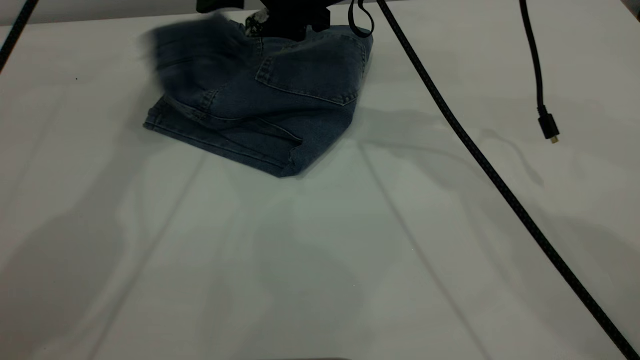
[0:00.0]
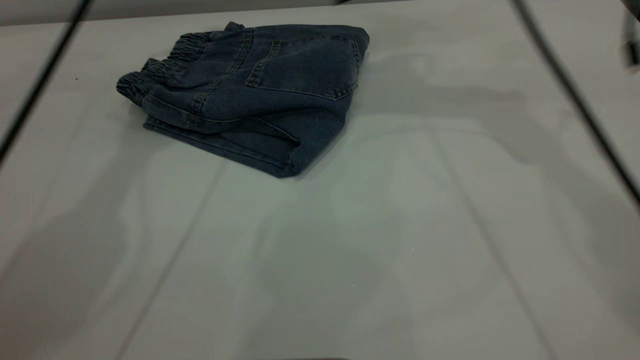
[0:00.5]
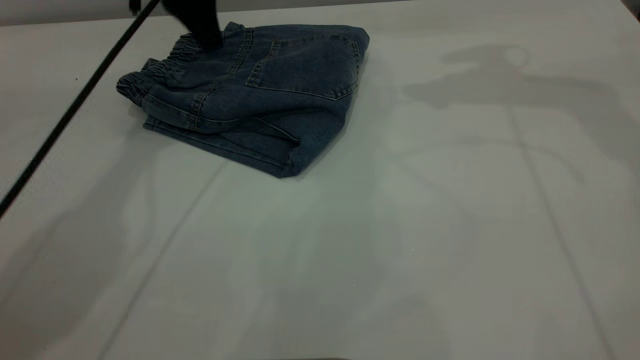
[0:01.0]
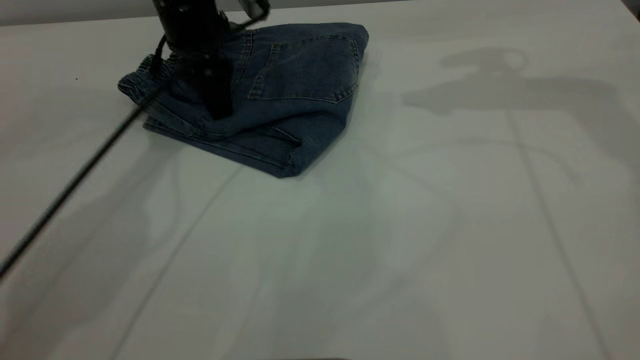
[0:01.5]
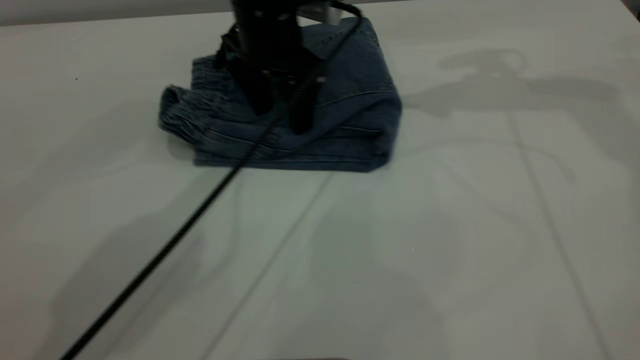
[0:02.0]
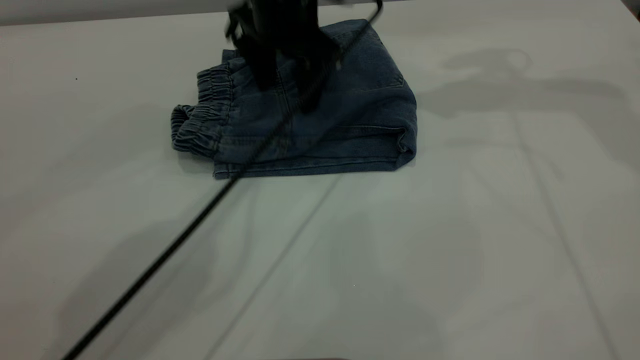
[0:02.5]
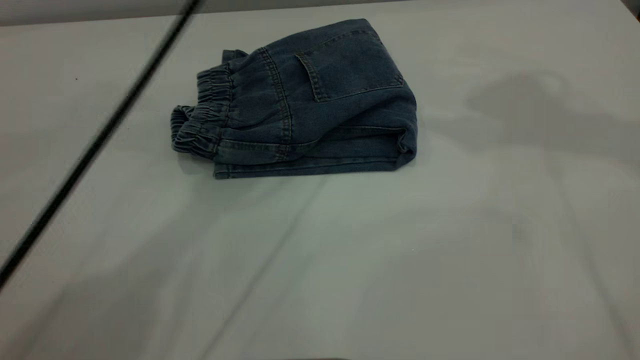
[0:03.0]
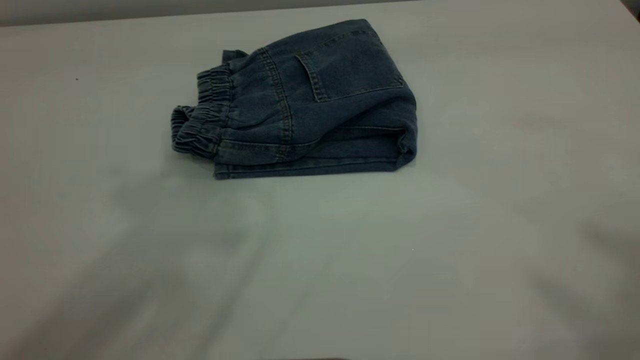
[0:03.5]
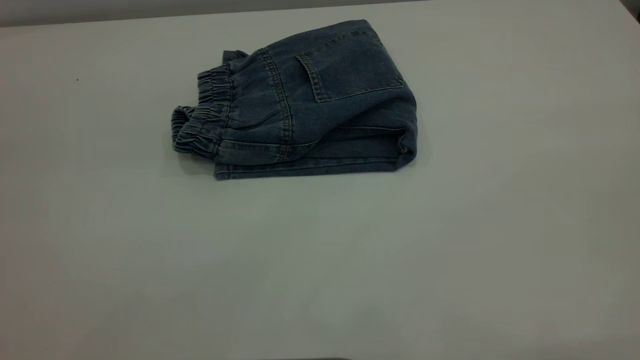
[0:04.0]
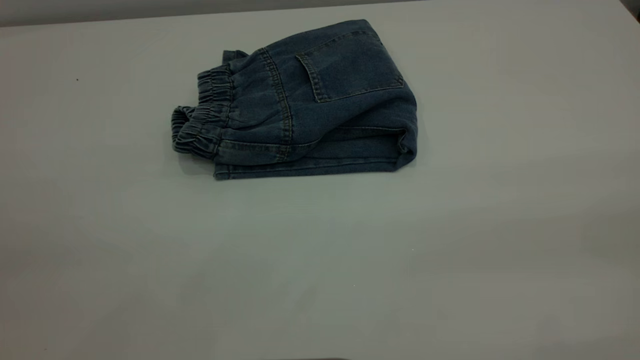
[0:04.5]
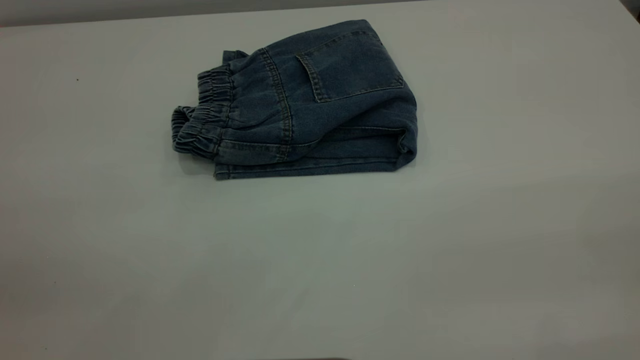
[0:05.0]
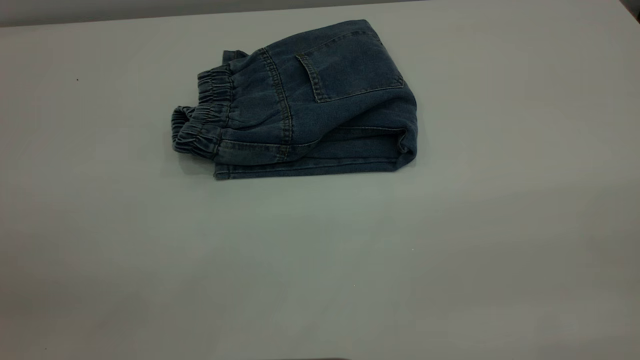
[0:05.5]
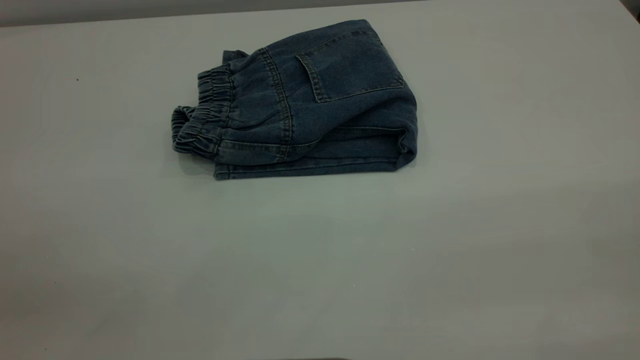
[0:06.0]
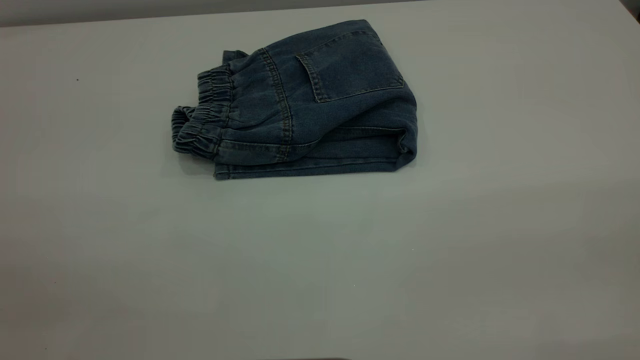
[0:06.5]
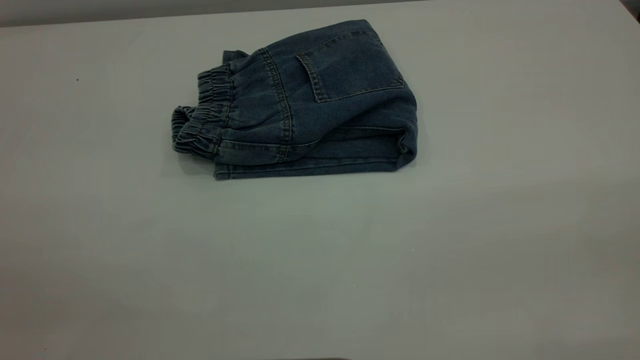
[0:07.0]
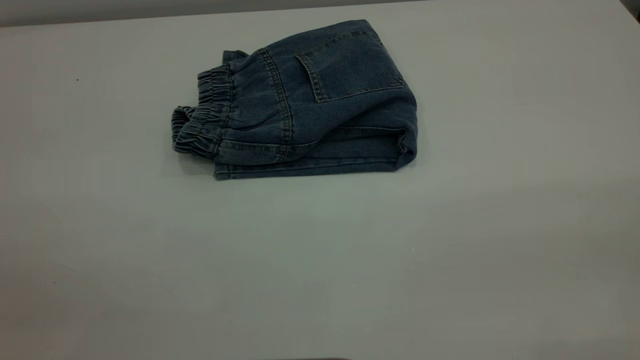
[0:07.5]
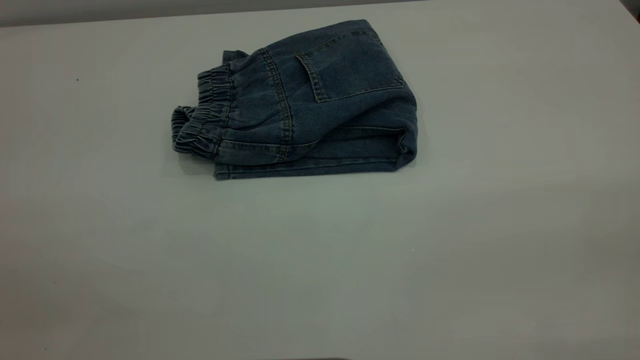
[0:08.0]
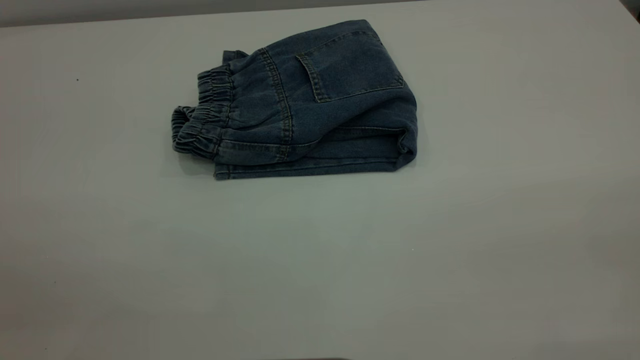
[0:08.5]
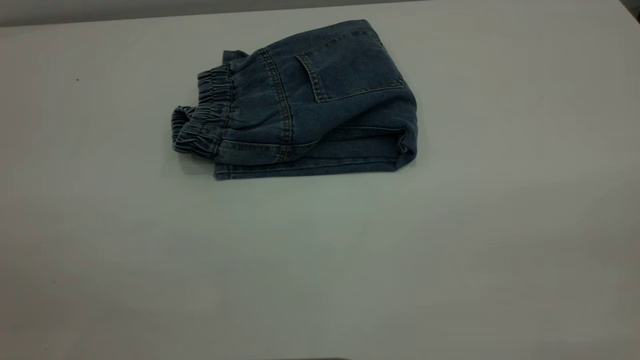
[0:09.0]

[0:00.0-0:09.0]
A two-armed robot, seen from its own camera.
0:00.0 to 0:02.0: The right gripper shifts some 25 cm to the right and upward; the left gripper heads downward and to the right, covering some 25 cm.
0:02.0 to 0:04.5: The left gripper travels backward, to the left and upward by roughly 50 cm; the right gripper goes roughly 40 cm backward.
